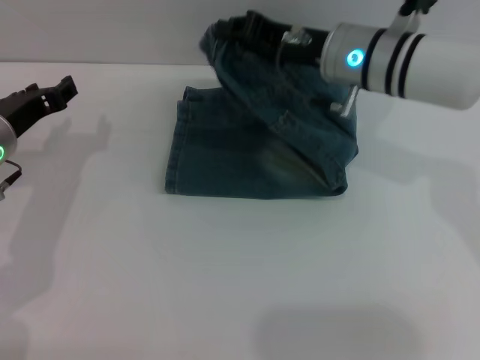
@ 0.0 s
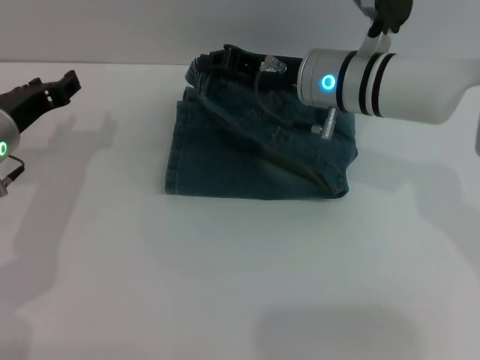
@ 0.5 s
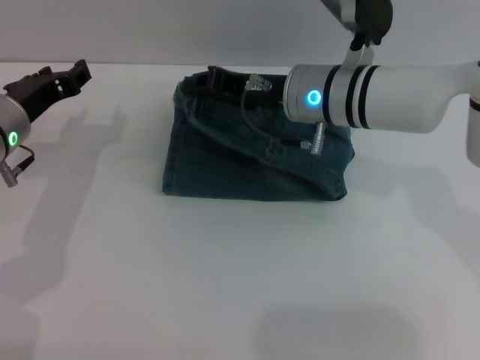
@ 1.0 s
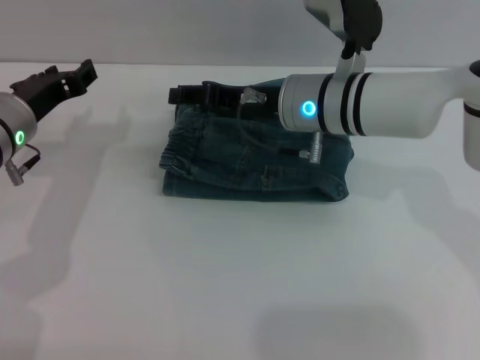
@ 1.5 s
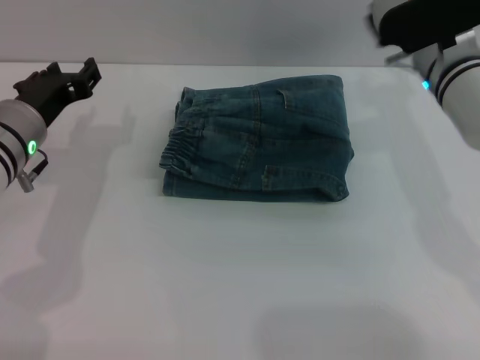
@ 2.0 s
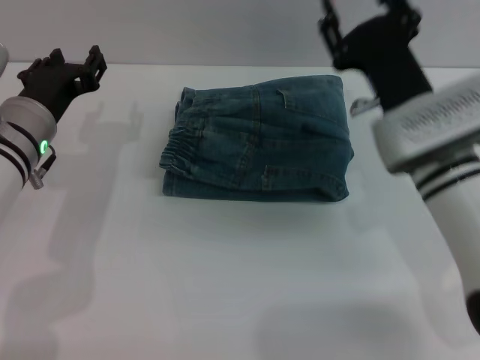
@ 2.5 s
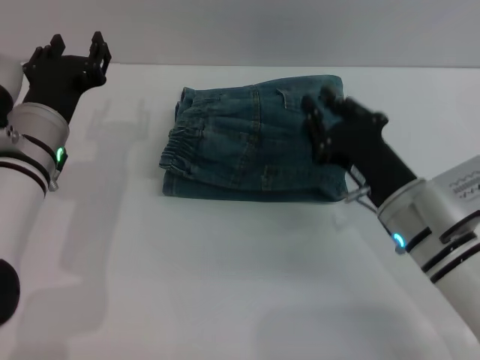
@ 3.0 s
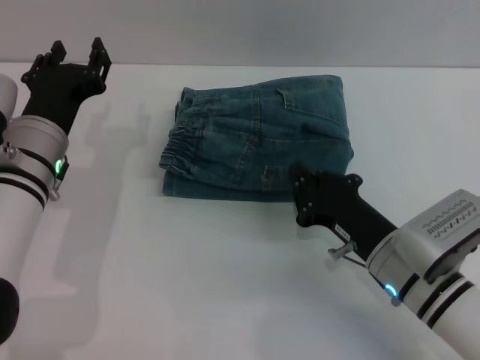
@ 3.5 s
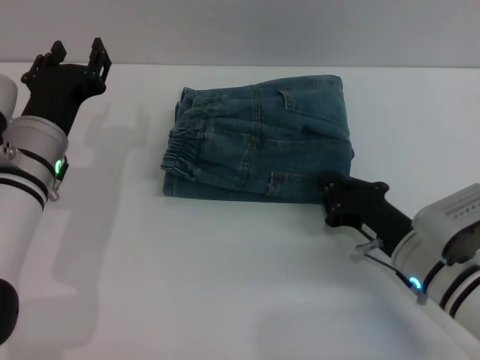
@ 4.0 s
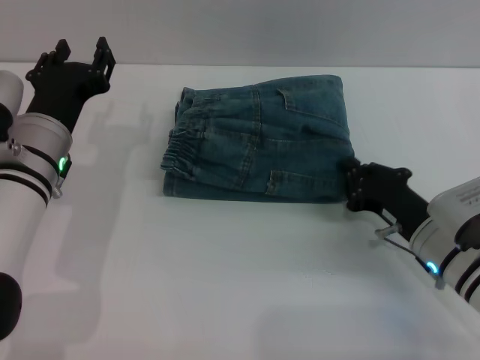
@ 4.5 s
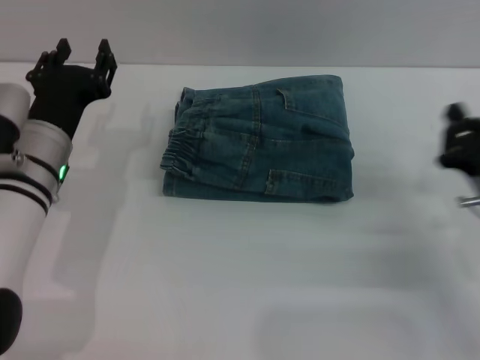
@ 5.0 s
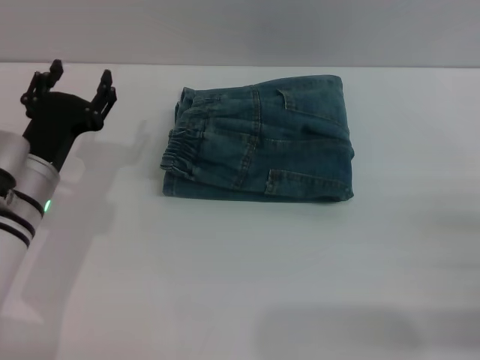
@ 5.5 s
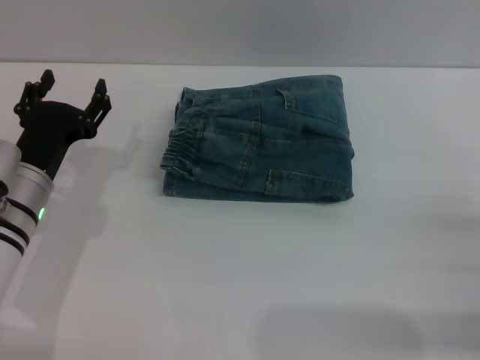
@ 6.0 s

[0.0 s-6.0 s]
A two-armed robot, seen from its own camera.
0.0 to 2.0 s: The right gripper shifts roughly 5 cm to the right, and opens its fingers.
2.0 to 4.0 s: The right gripper moves downward and backward, about 20 cm, and closes its fingers.
4.0 to 6.0 s: The left gripper moves approximately 5 cm; the right gripper heads to the right and backward, covering approximately 15 cm, and opens.
